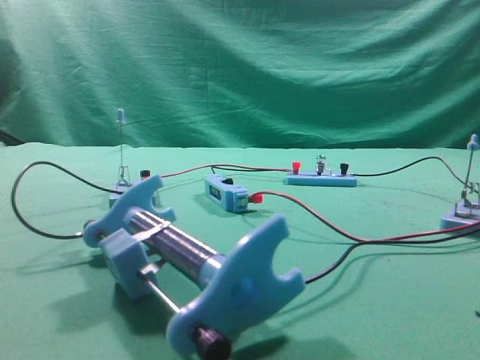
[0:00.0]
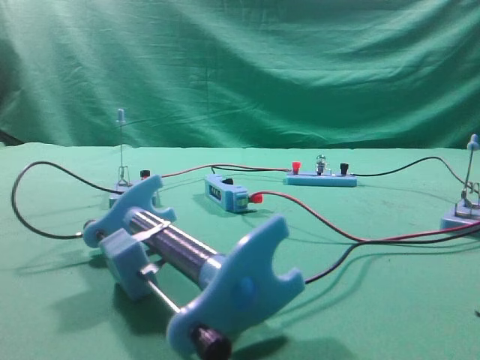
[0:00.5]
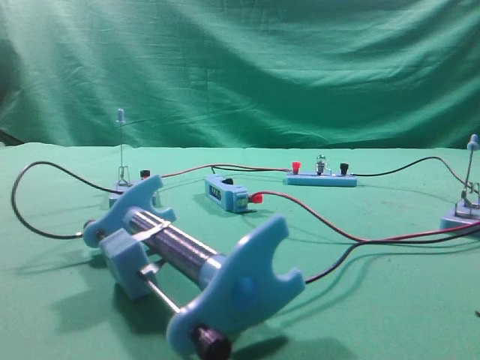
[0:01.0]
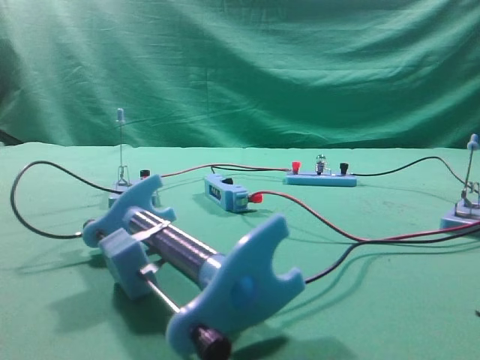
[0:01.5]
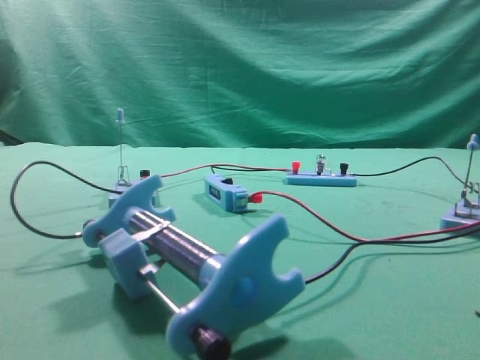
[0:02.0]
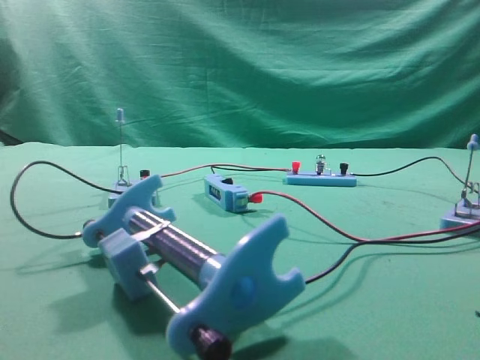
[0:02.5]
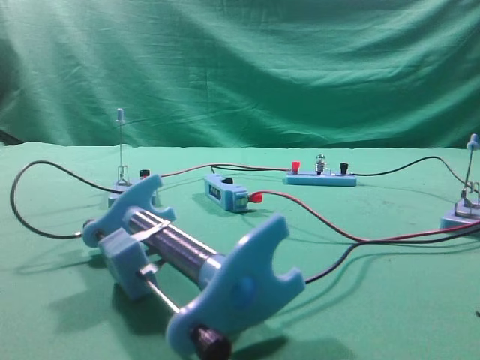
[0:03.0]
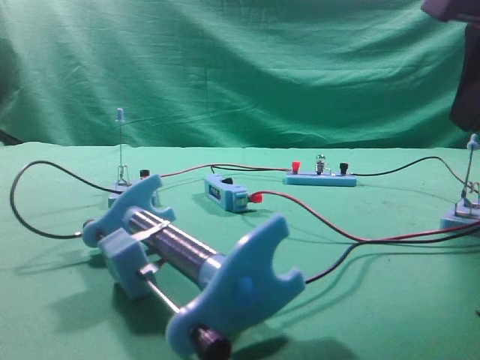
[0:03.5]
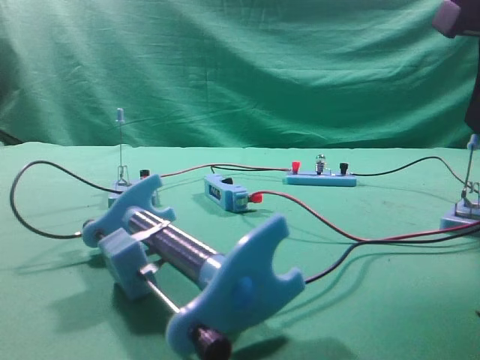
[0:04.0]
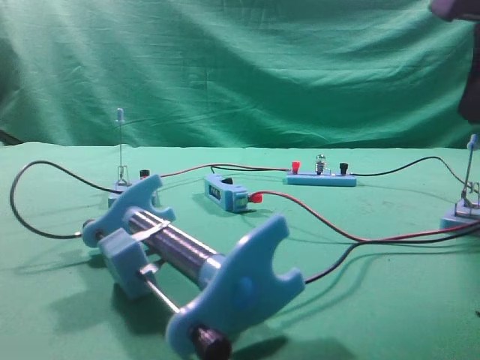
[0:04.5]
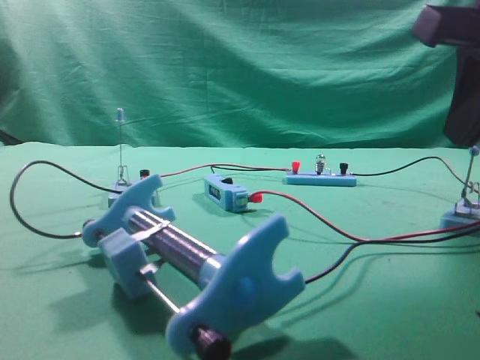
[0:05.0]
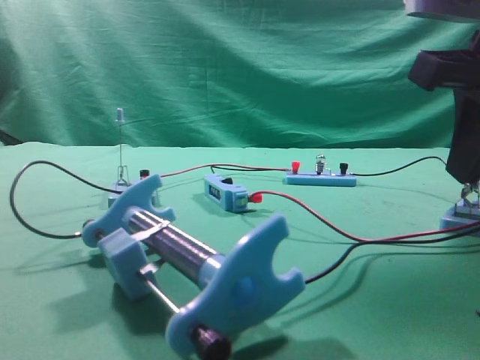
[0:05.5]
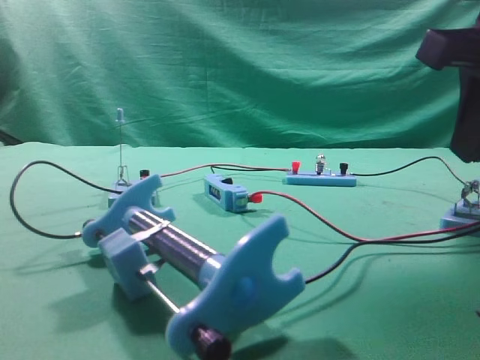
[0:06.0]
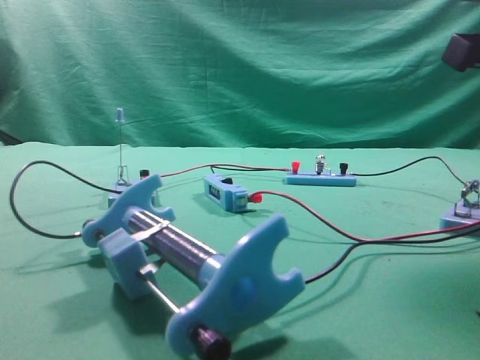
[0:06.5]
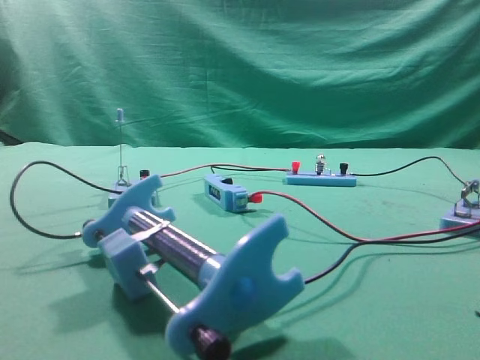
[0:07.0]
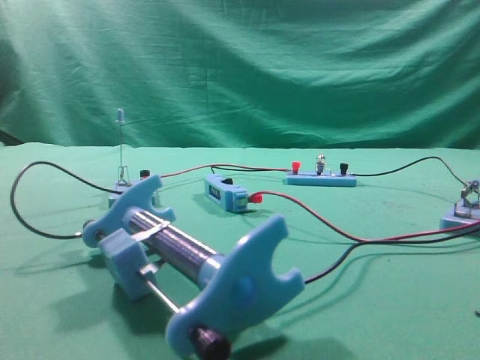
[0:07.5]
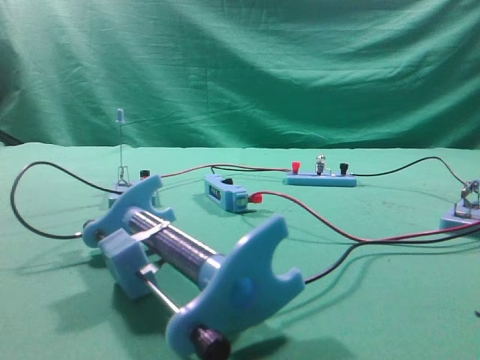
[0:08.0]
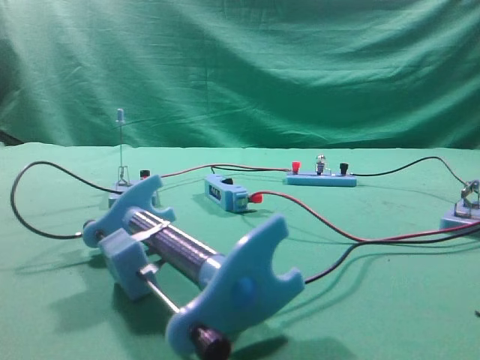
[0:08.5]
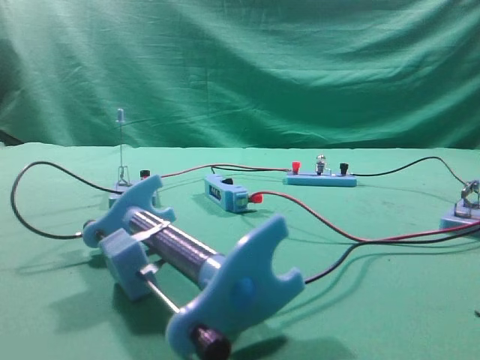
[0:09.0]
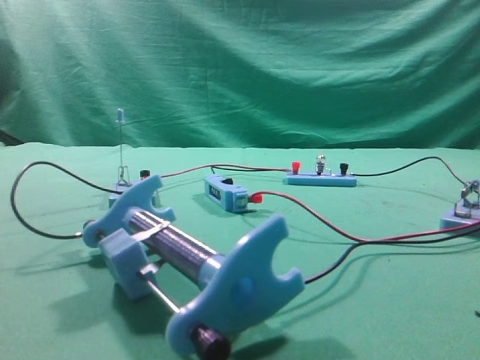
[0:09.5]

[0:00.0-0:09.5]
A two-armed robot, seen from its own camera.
Task of the whole recording: press the switch on the desk to turn on the bulb.
Step, 0:00.0 to 0:03.5: Turn on the switch.
